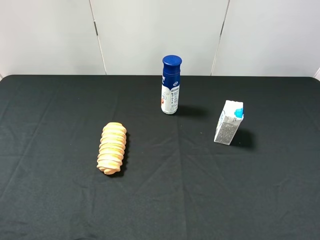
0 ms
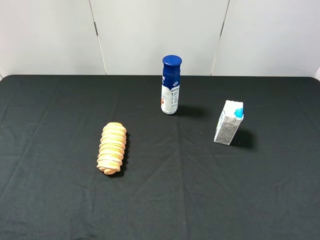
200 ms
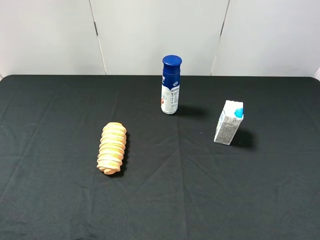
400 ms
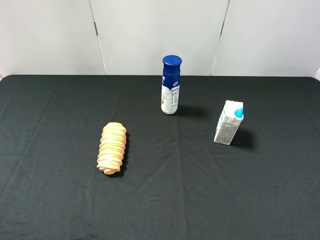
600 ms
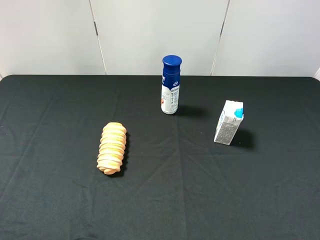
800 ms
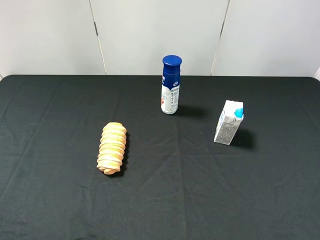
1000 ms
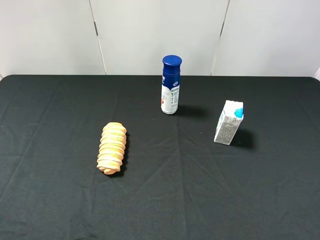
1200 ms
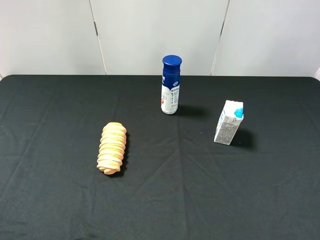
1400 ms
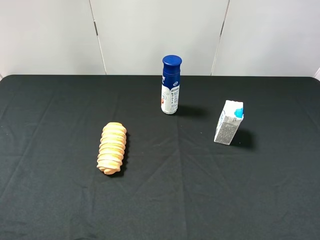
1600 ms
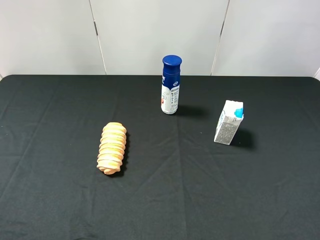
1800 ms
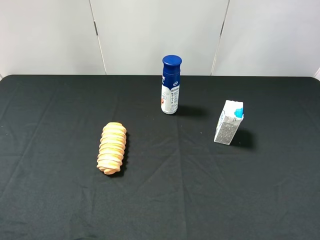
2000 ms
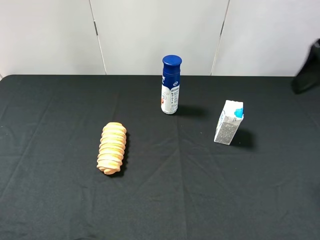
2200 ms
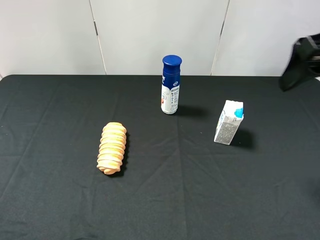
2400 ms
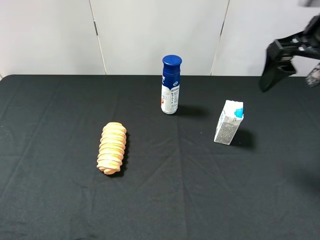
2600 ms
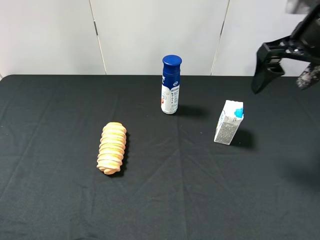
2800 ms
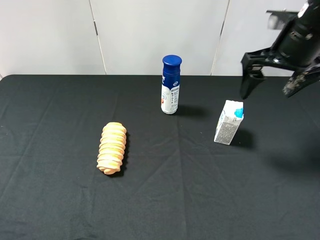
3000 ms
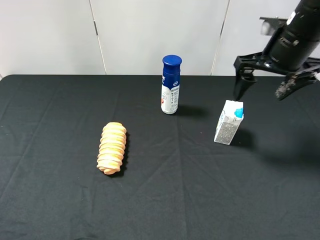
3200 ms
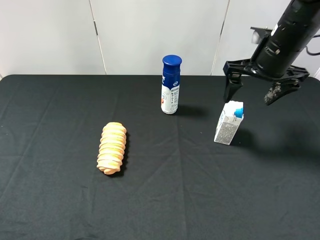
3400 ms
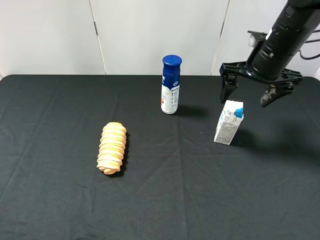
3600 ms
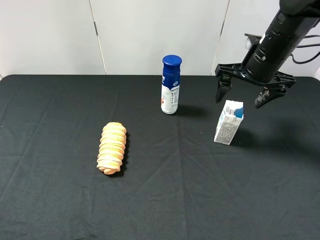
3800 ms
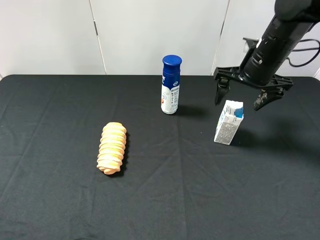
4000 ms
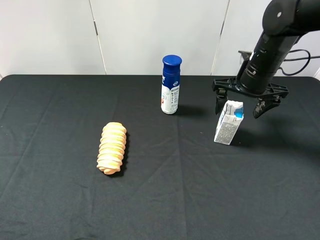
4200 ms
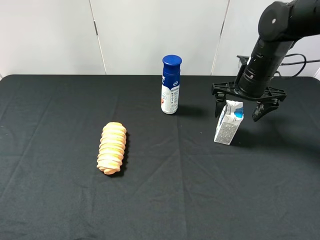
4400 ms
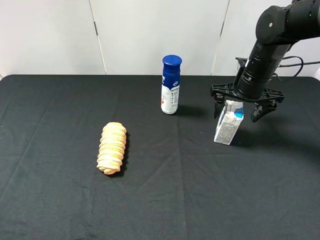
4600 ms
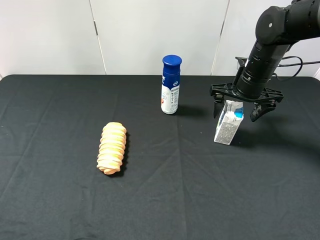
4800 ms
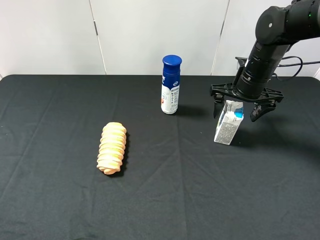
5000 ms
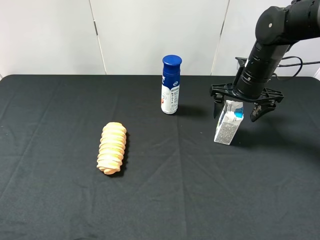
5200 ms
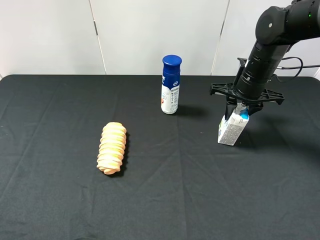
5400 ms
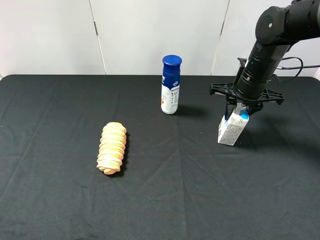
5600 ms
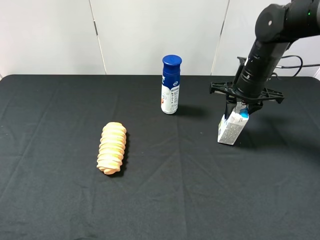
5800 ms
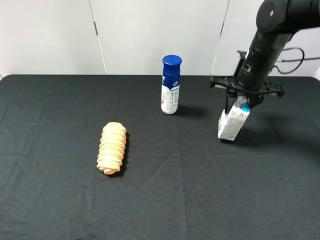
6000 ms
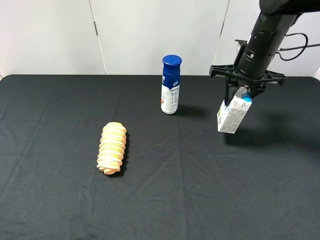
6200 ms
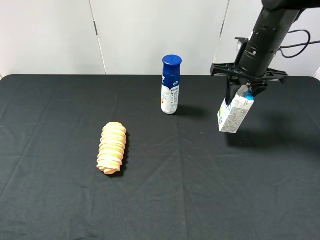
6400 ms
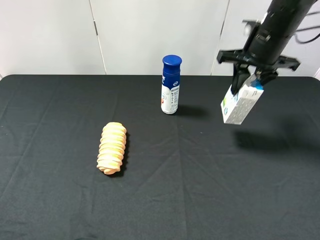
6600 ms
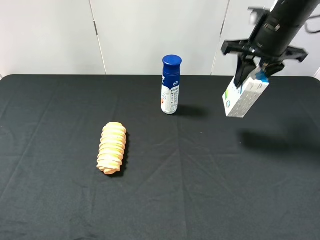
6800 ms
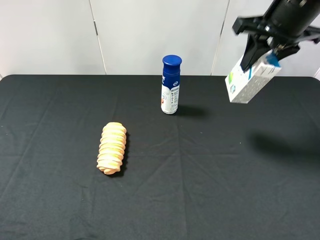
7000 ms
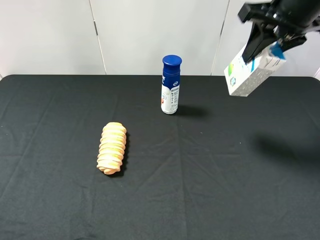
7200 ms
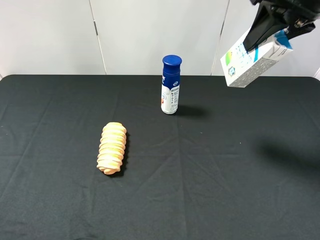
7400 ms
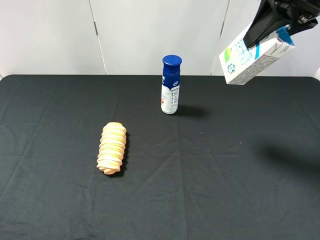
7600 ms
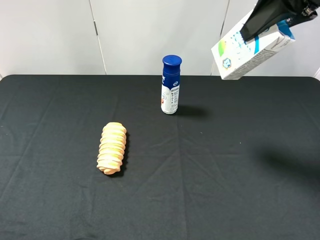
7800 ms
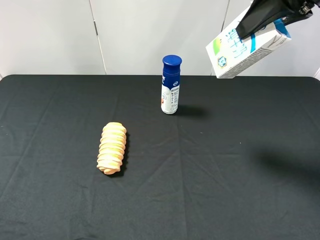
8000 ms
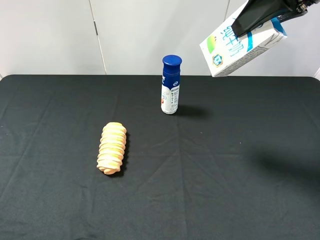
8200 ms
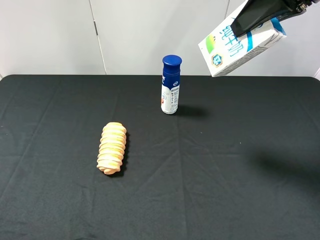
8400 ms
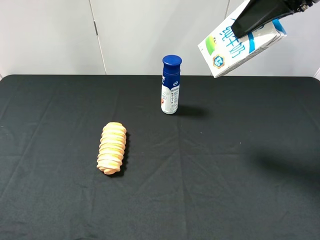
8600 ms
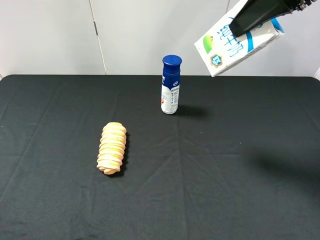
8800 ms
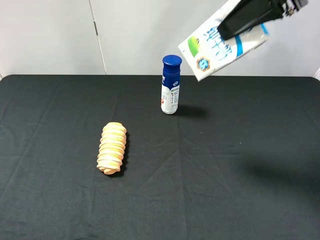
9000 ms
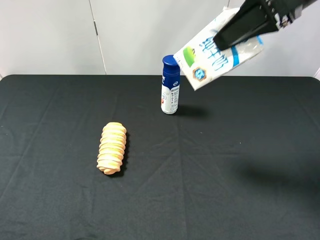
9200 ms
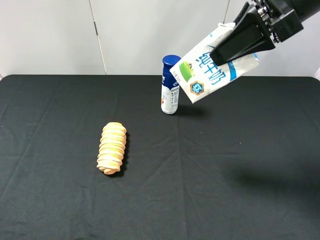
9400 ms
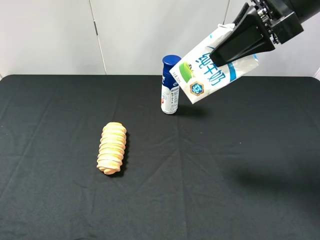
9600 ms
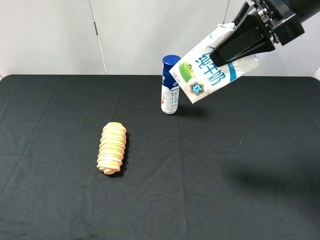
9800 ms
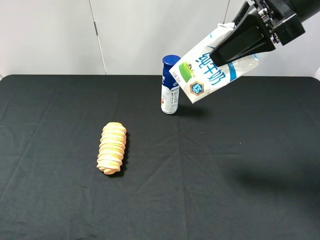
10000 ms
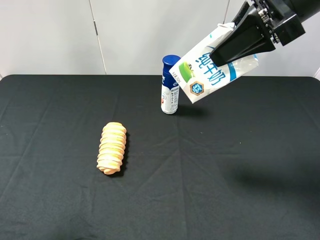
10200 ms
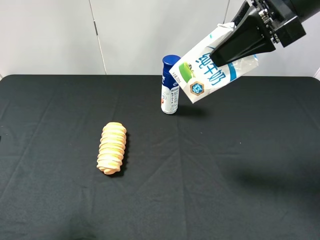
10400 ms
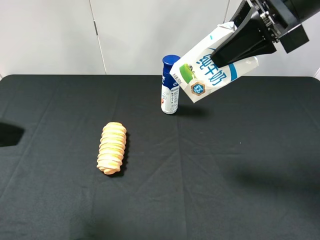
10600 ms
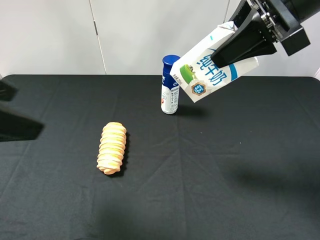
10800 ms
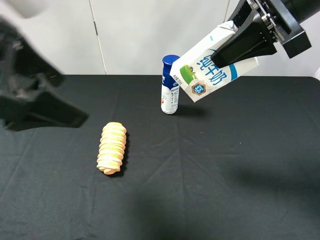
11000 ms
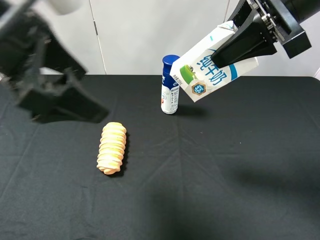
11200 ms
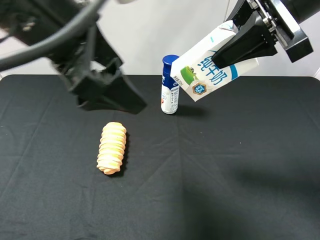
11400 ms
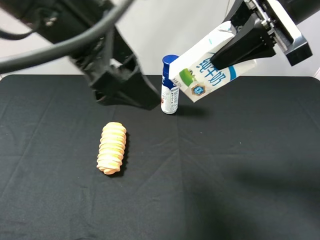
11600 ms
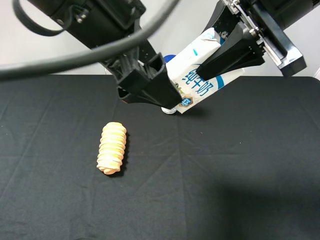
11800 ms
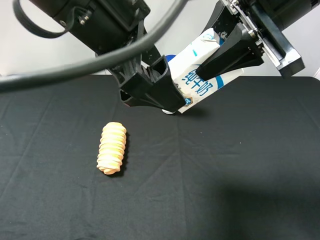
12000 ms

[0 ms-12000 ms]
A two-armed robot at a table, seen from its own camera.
Task of the whole recording: use the right gripper to pick up the item and transfer it from the right gripper to the left gripper.
Step, 0 ms to 5400 ms: Use the right gripper to grab the milk on the right side of the table.
1600 ms to 3000 ms: The right gripper travels forward by about 20 cm.
3000 ms to 4400 ms: The right gripper moves downward and forward, roughly 10 cm.
4400 ms to 6000 ms: The right gripper closes its fingers.
6000 ms to 7600 ms: The right gripper travels upward and backward by roughly 20 cm.
9000 ms to 10400 ms: The left gripper goes roughly 10 cm forward.
10400 ms to 12000 ms: The left gripper travels to the right and forward by about 25 cm.

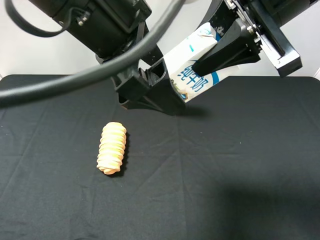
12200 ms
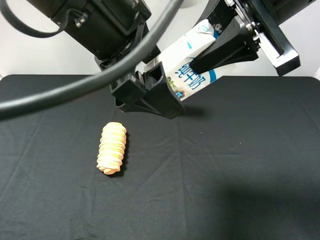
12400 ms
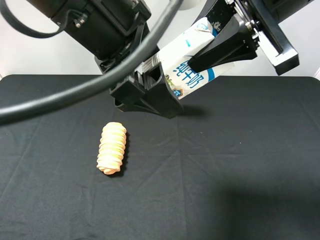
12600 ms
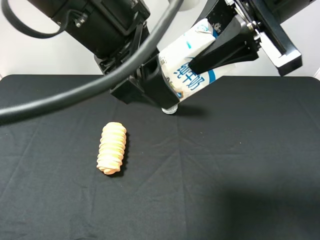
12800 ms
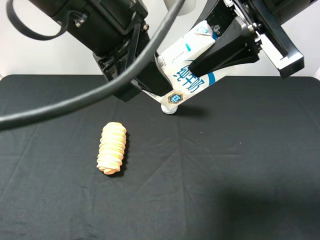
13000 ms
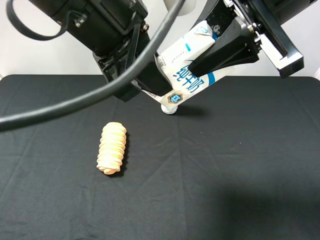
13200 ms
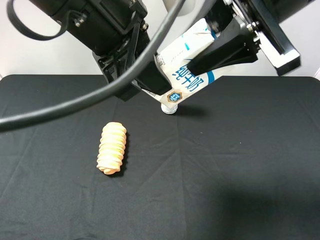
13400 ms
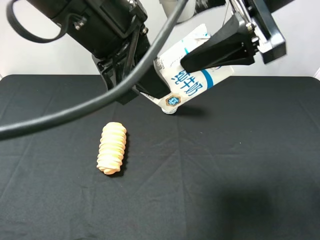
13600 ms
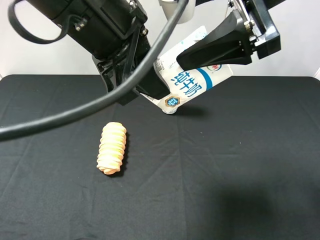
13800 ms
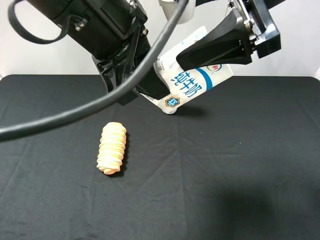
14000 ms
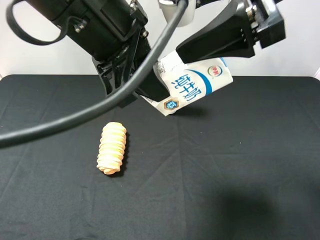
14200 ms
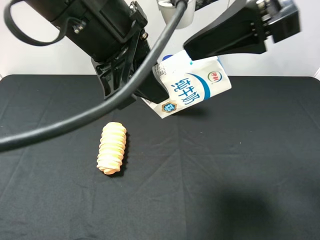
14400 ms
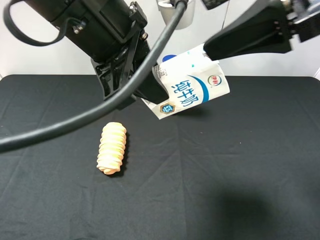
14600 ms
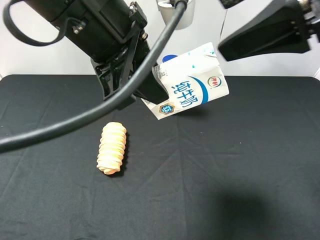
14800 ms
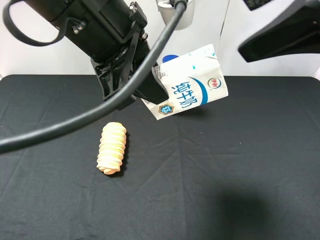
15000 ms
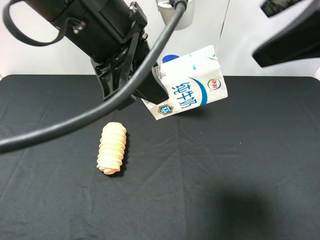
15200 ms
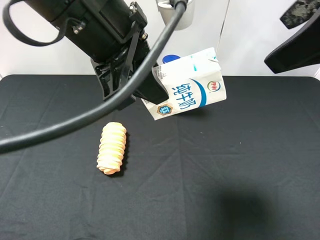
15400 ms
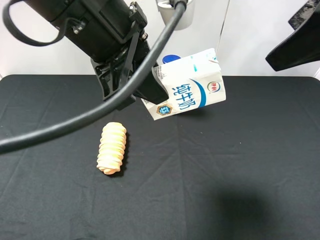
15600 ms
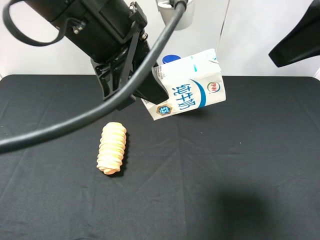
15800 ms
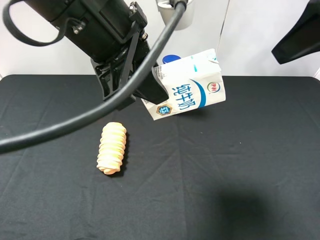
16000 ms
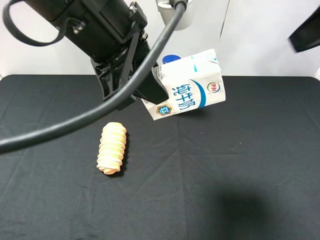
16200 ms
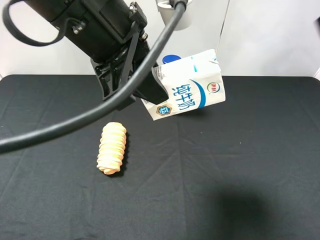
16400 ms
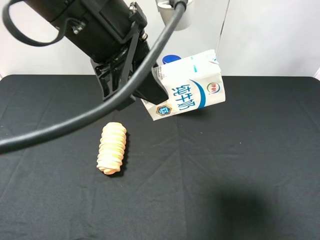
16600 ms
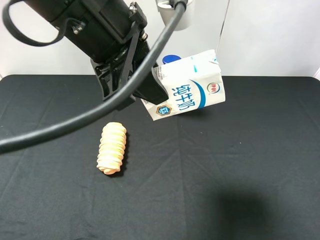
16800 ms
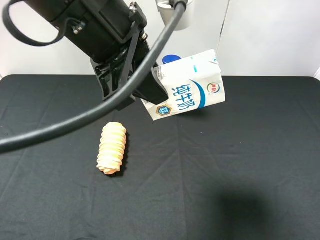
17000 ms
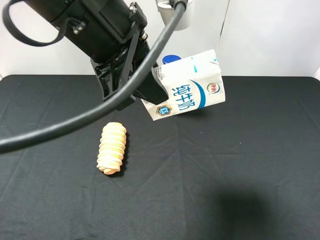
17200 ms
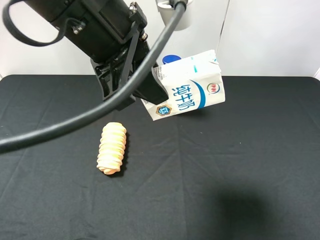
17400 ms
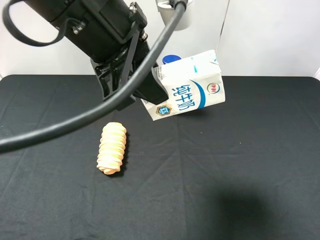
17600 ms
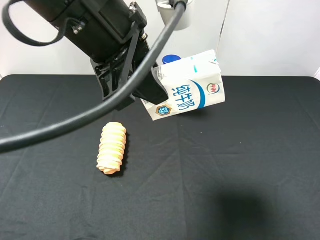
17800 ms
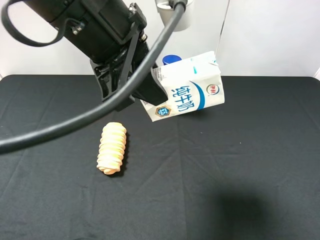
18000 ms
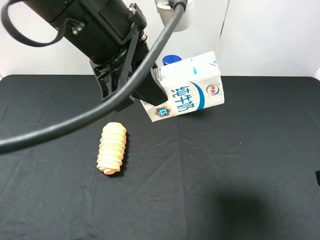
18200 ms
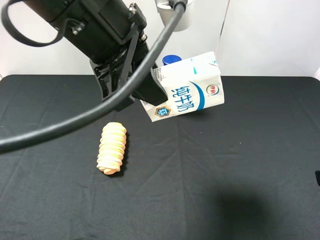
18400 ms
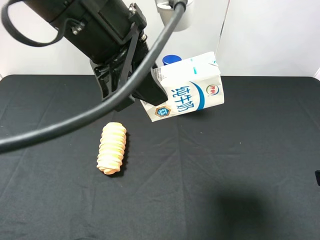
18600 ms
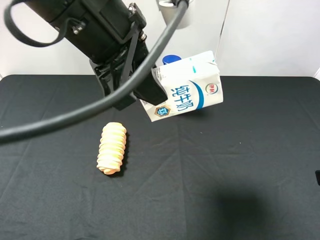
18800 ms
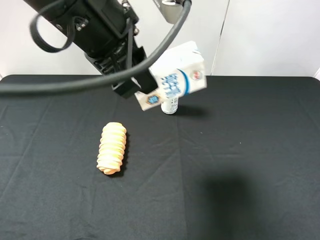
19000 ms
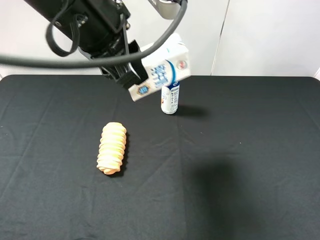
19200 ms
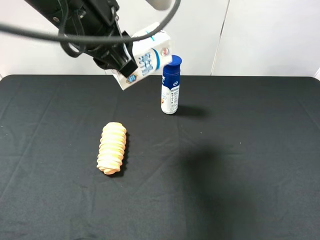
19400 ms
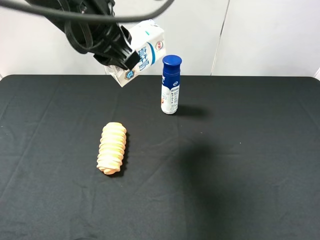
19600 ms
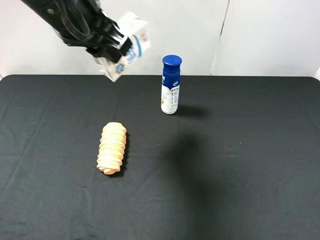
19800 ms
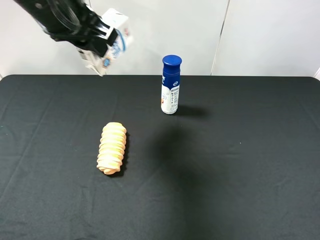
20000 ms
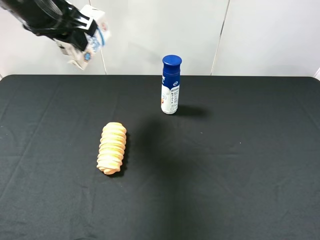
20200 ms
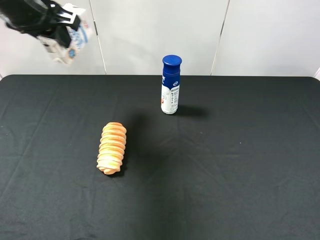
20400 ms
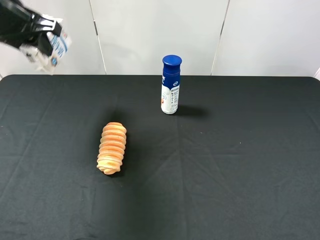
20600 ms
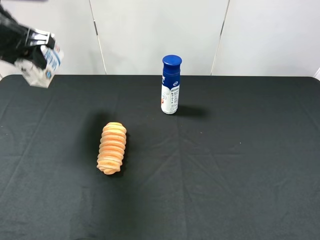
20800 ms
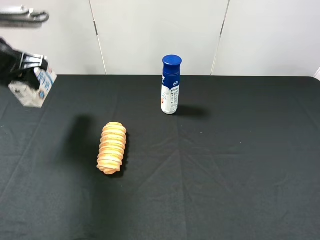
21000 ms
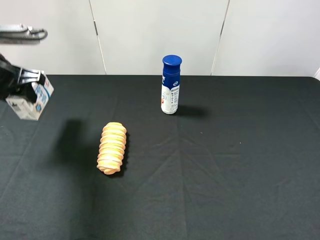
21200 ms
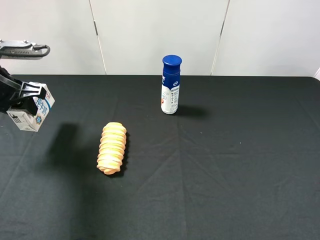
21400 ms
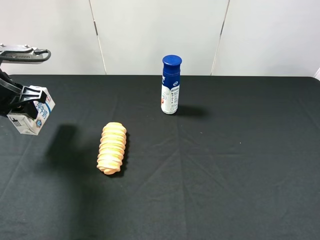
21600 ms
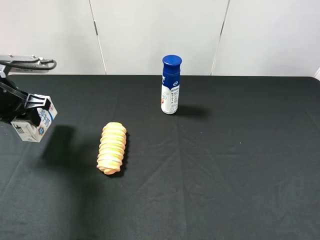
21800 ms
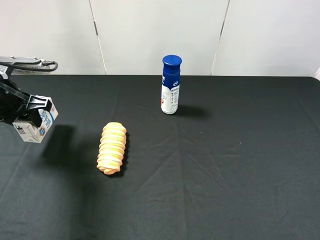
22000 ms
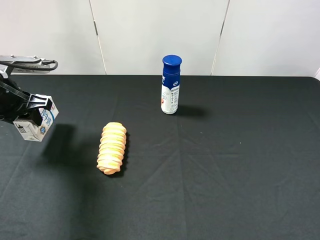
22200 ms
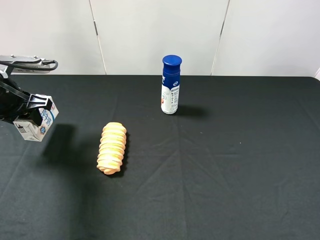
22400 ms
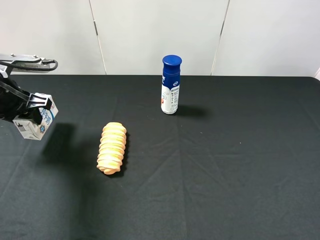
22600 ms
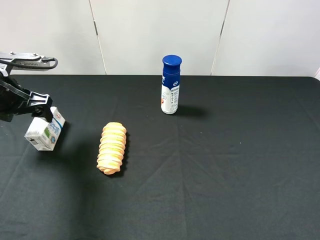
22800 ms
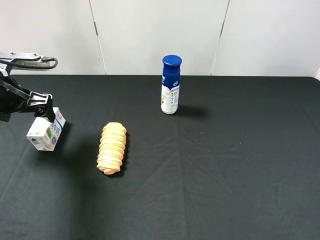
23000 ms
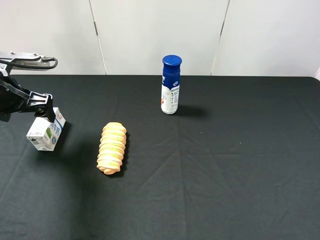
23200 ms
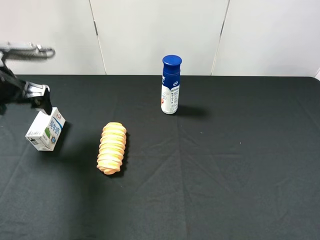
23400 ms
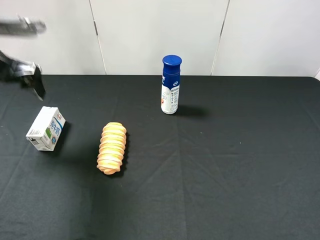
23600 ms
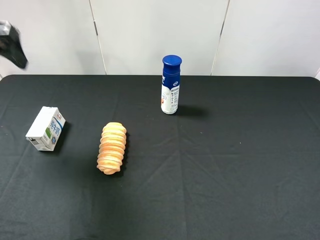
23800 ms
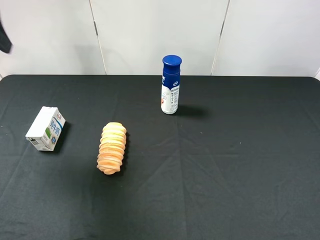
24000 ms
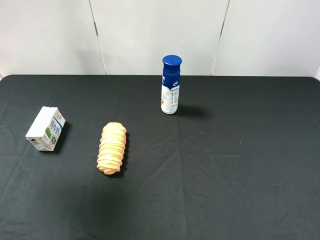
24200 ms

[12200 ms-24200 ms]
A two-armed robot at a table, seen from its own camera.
Task of the whole recording: use the right gripper to pick up the item and transfer it from the right gripper to the left gripper.
Step, 14200 ms to 23000 ms: The left gripper places milk on the left side of the table.
12200 ms to 13800 ms: The right gripper opens up. Meanwhile the left gripper closes.
13800 ms to 15200 ms: The right gripper shifts some 10 cm to the right and backward.
15200 ms to 16600 ms: The right gripper moves backward and to the right, some 10 cm.
16600 ms to 18200 ms: The right gripper travels downward by about 20 cm.
18200 ms to 19800 ms: The left gripper is displaced forward by some 5 cm.
19800 ms to 21200 ms: The left gripper is displaced to the left and downward by approximately 20 cm.
21200 ms to 22600 ms: The grippers move only a little.
22600 ms to 24200 ms: The left gripper is displaced upward by some 20 cm, and opens its fingers.
